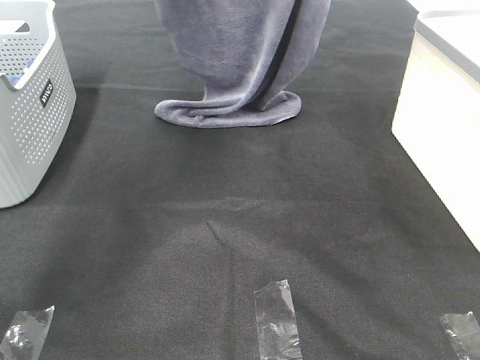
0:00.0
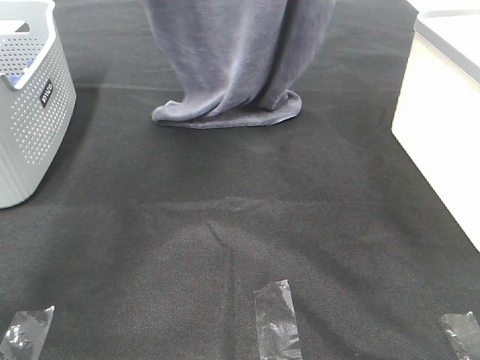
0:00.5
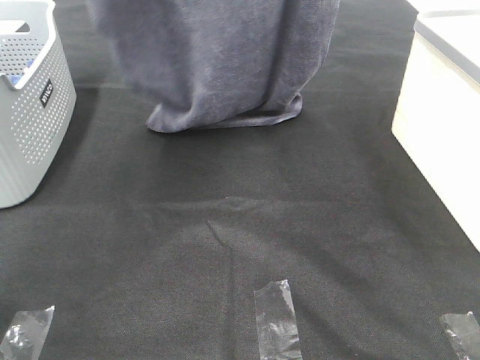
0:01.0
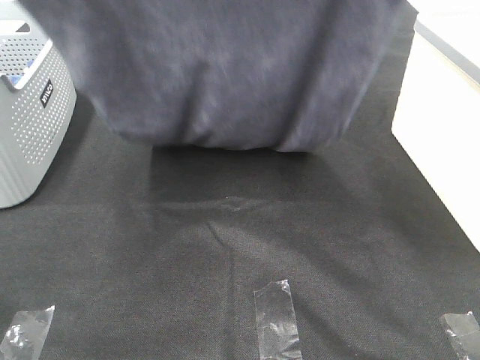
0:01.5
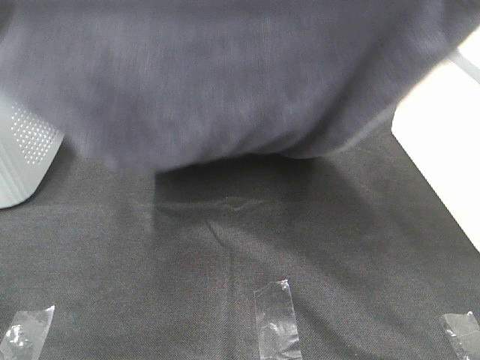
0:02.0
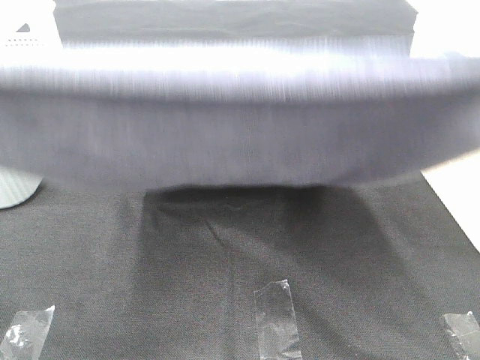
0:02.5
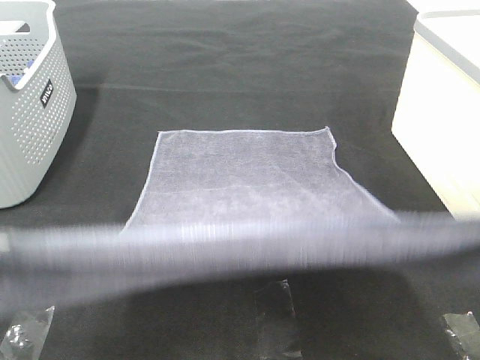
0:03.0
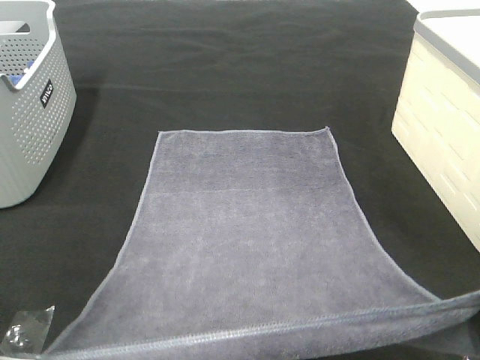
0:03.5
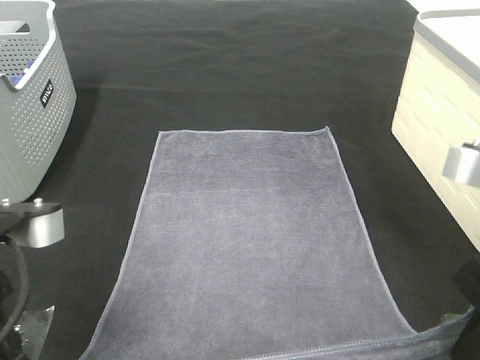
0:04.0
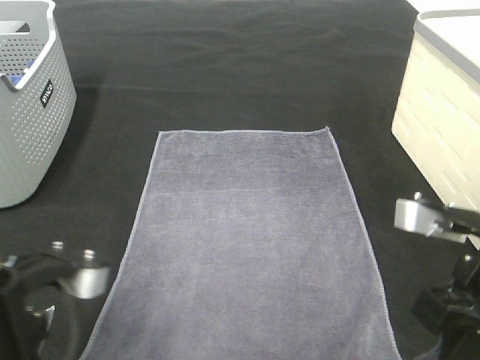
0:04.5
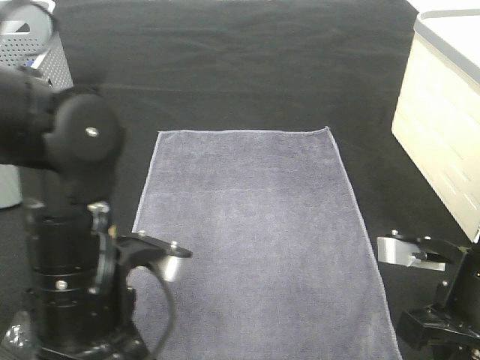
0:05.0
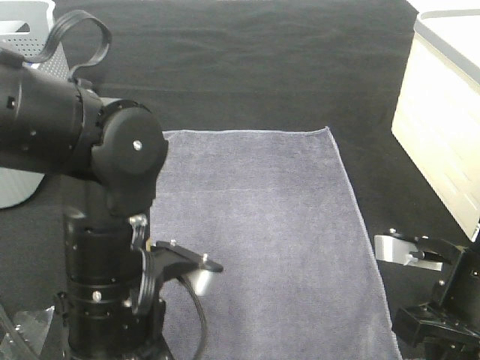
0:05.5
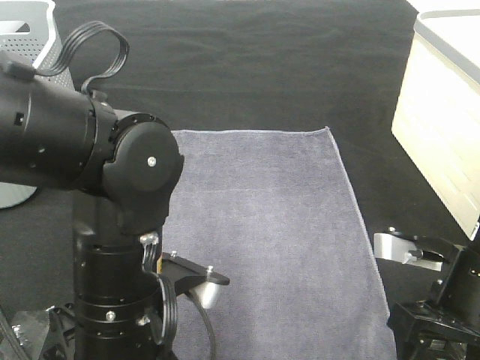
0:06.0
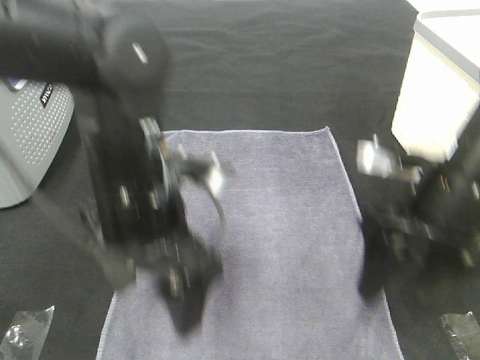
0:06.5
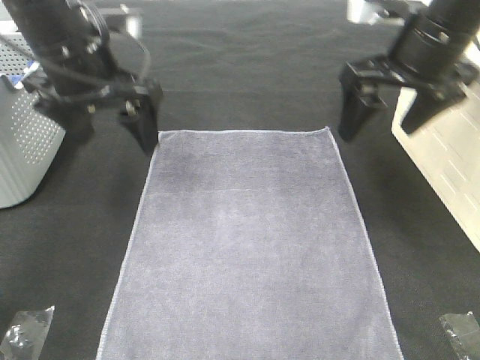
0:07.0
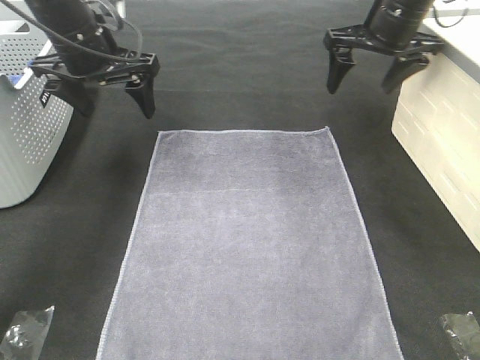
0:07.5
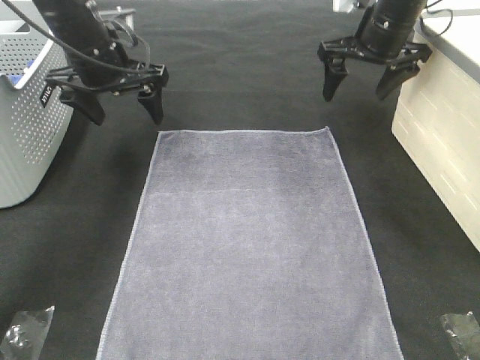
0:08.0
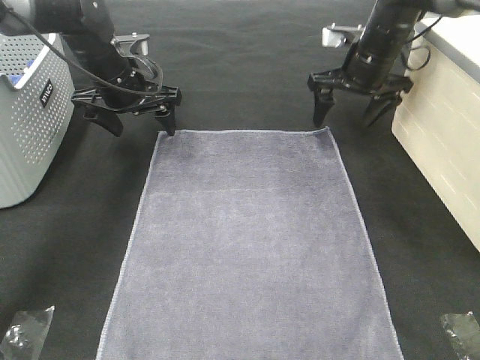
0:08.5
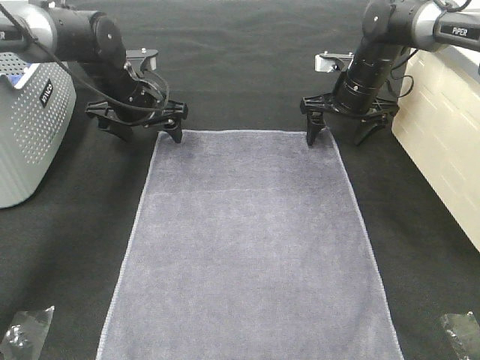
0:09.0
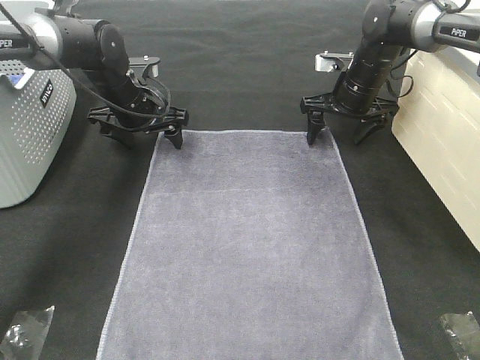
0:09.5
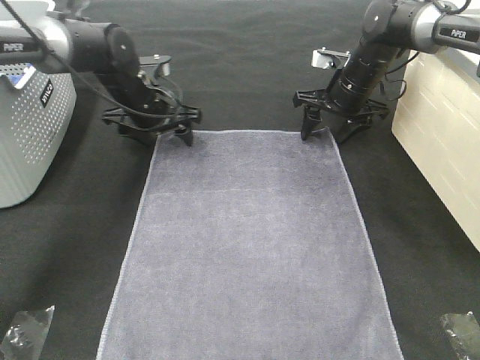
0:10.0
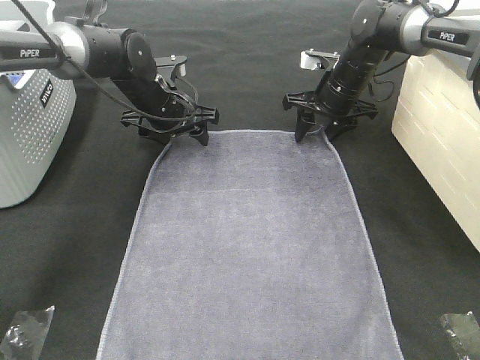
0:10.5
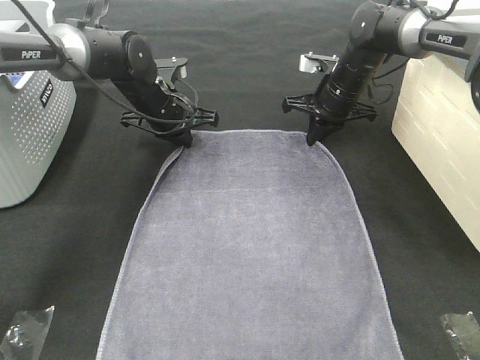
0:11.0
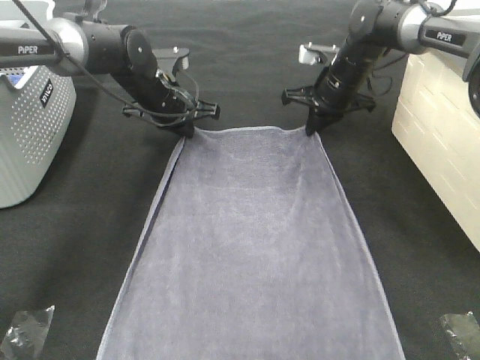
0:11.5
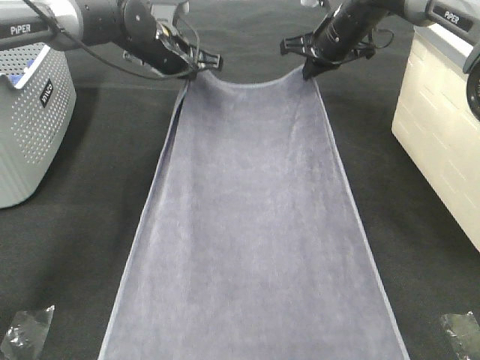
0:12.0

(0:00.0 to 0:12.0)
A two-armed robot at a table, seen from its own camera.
Task of the whole recording: Remove the towel and place it.
Step, 0:01.5 - 0:09.5: Left hand:adjust the gray towel.
Step, 0:01.5 - 0:10.5: Right hand:adjust the gray towel.
0:00.0 - 0:02.0: Both grippers move backward, roughly 30 cm.
0:02.0 - 0:04.0: Both grippers move downward, approximately 20 cm.
0:04.0 - 0:06.0: The left gripper goes approximately 15 cm to the right and downward, and opens. Meanwhile the right gripper shifts approximately 10 cm downward, and opens up.
0:06.0 - 0:08.0: The grippers both shift forward by approximately 30 cm.
0:08.0 - 0:10.0: Both grippers travel together downward, some 10 cm.
0:10.0 - 0:12.0: The grippers both shift upward by some 5 cm. The right gripper closes; the left gripper closes up.

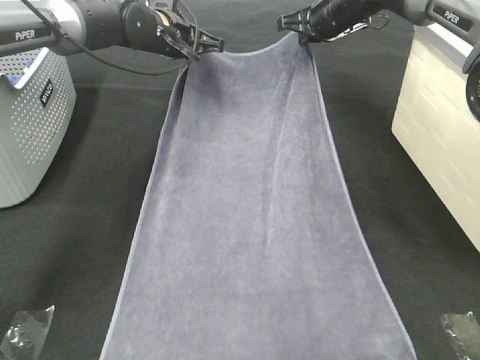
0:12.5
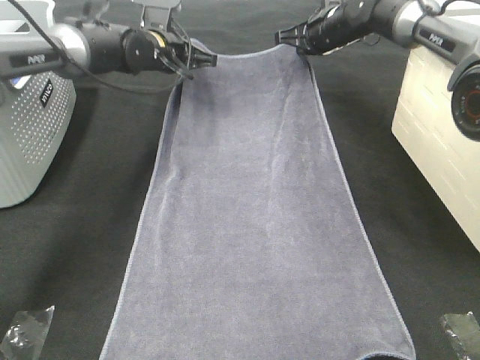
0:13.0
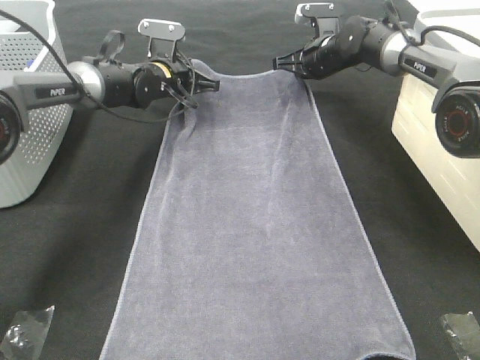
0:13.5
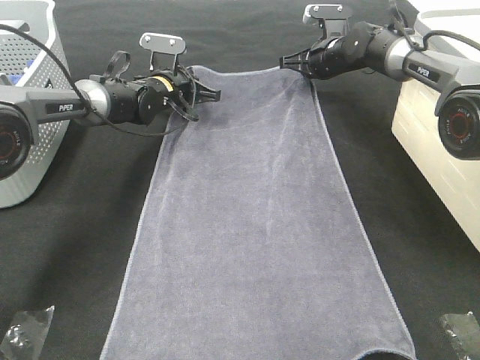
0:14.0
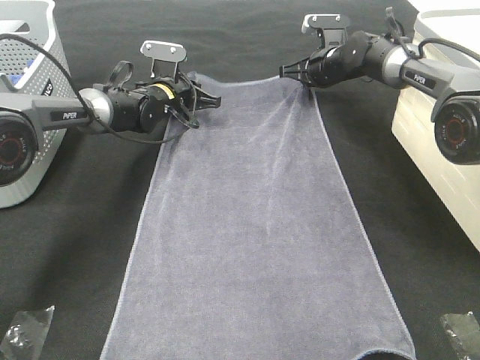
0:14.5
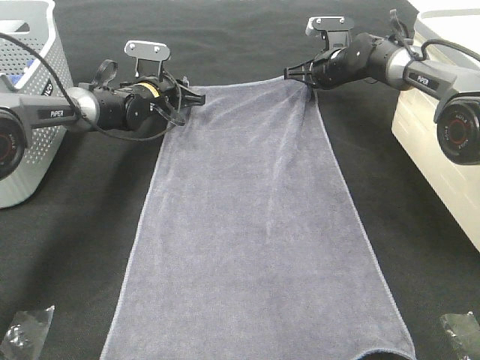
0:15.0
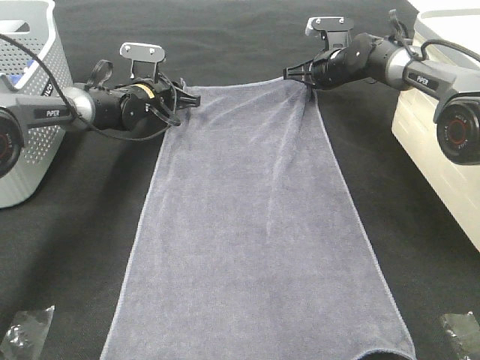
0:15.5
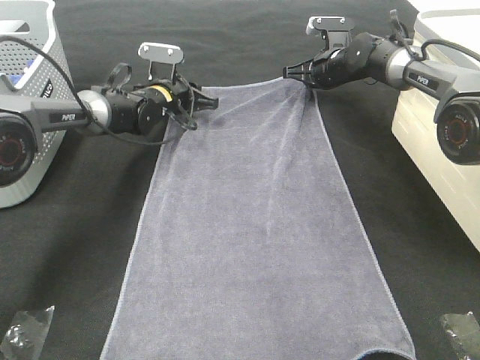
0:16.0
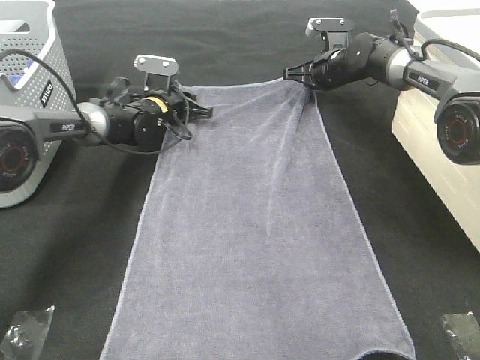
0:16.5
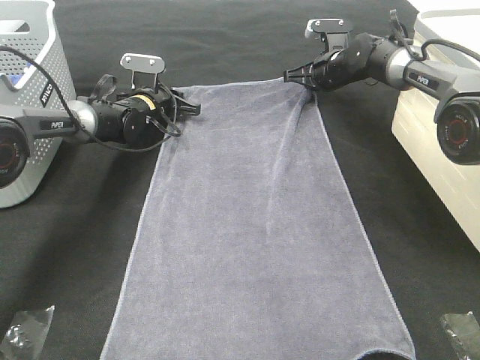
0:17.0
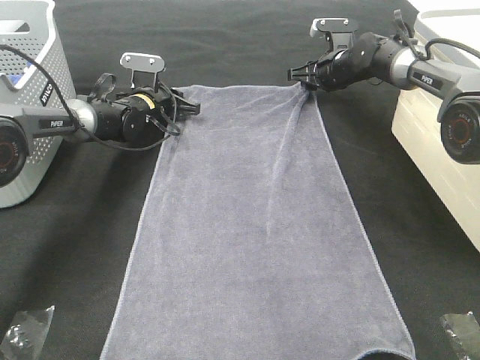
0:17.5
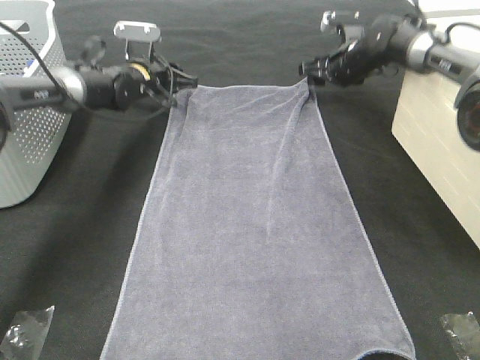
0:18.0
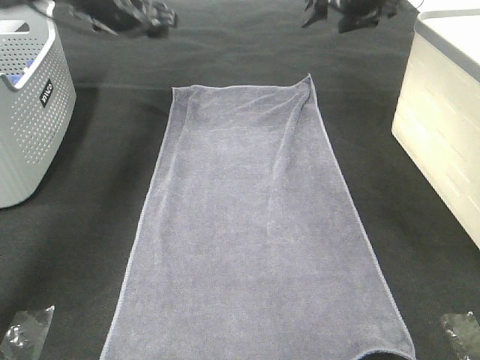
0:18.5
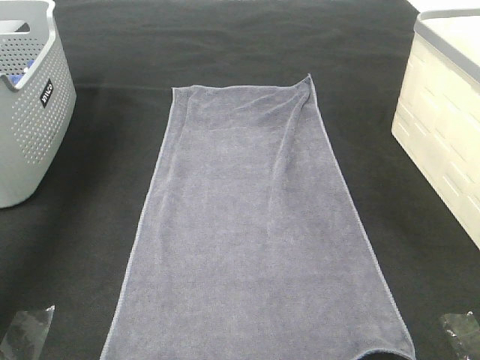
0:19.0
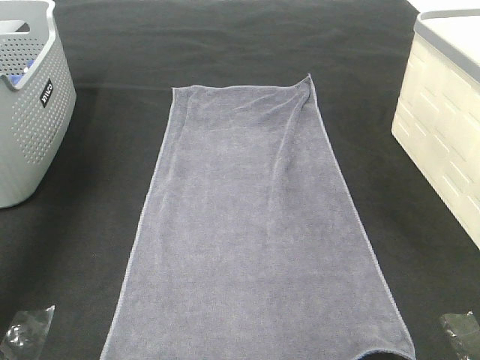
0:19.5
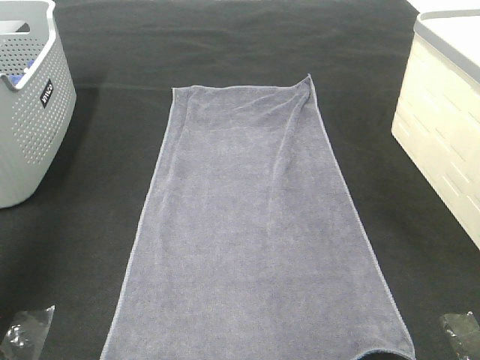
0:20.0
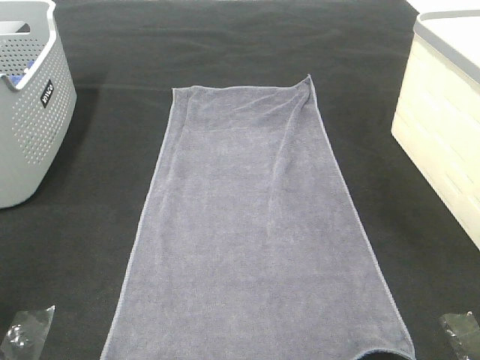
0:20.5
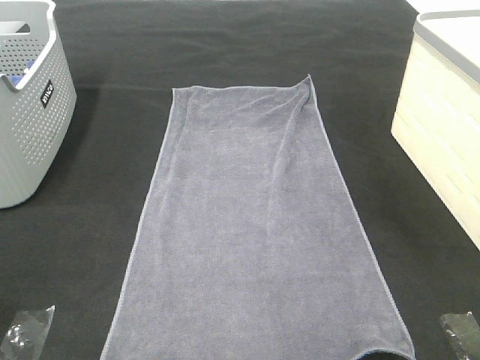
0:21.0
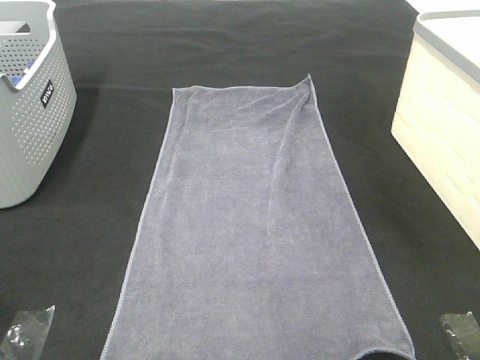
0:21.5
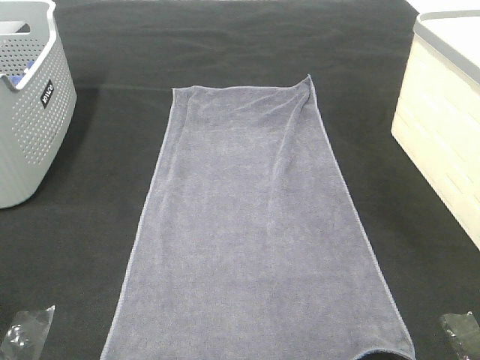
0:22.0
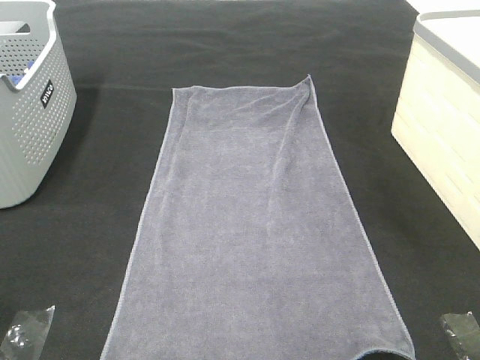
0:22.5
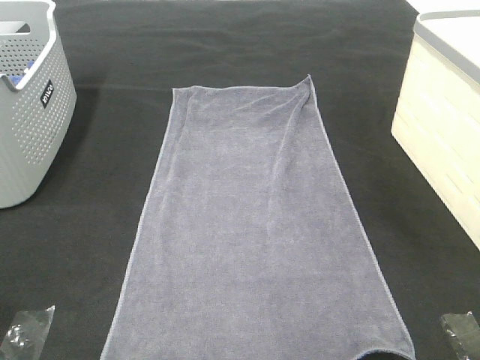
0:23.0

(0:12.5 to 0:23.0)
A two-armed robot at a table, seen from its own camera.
Task of the whole recording: Remove the towel and place it.
0:12.5 - 0:14.5: Both grippers move downward, about 10 cm.
0:14.5 - 0:16.5: The grippers move only a little.
0:16.5 - 0:19.0: The left gripper shifts roughly 35 cm upward and to the left, and opens; the right gripper goes about 35 cm upward and backward, and opens its fingers.
0:19.0 - 0:21.0: The grippers both shift backward by about 50 cm.

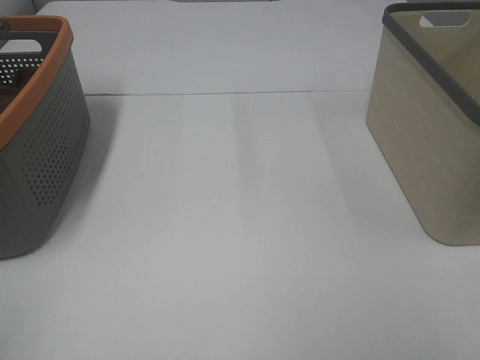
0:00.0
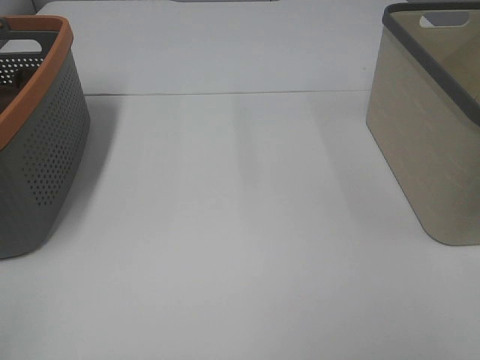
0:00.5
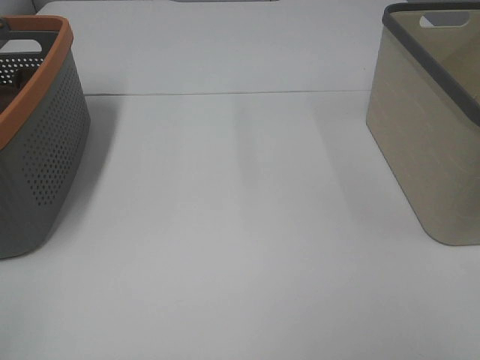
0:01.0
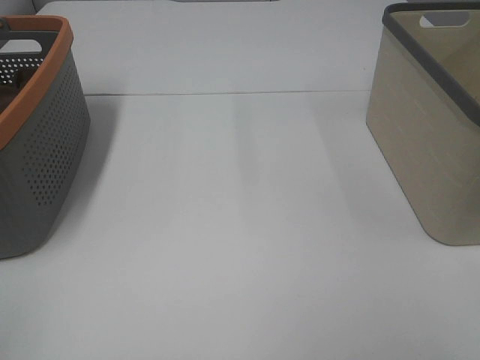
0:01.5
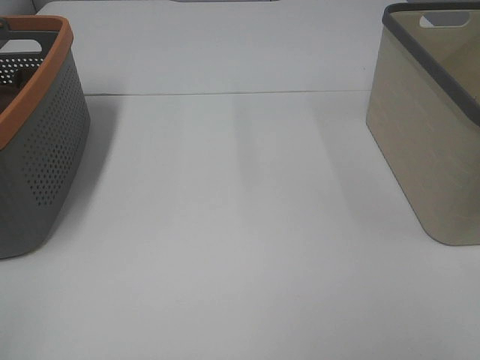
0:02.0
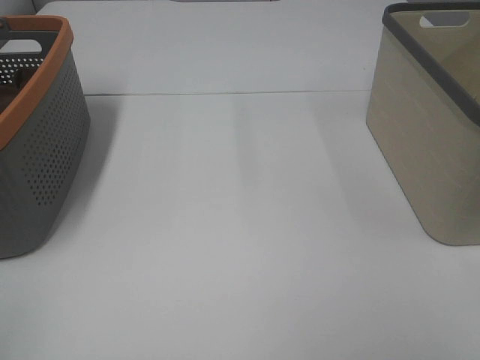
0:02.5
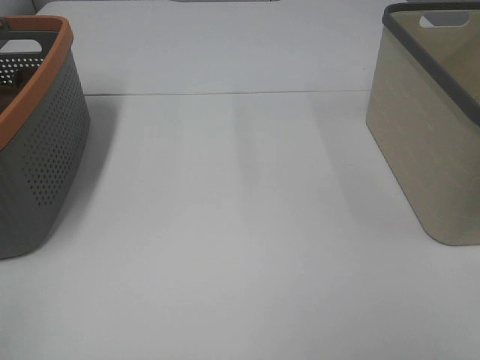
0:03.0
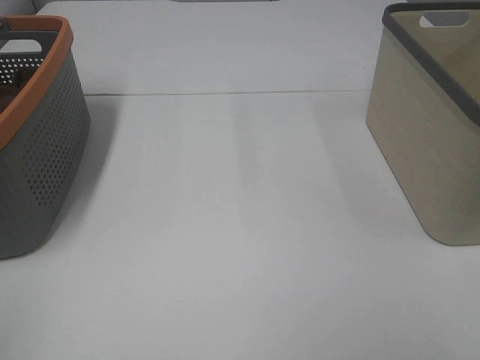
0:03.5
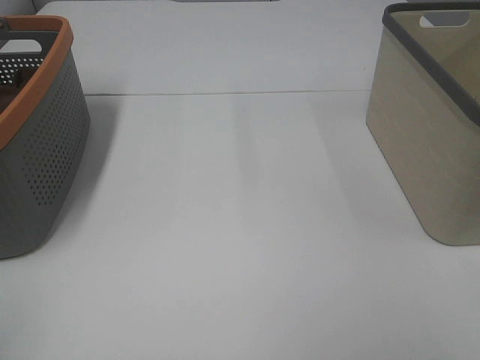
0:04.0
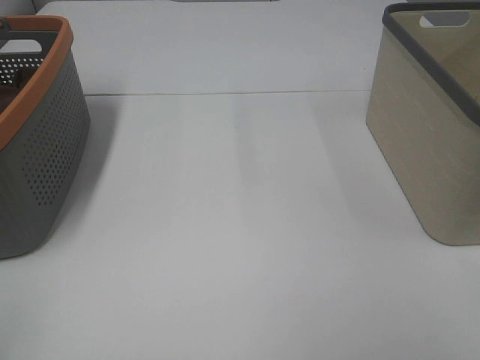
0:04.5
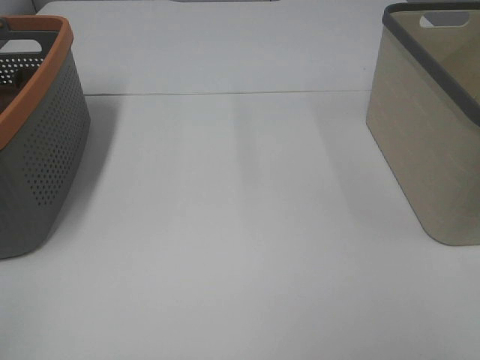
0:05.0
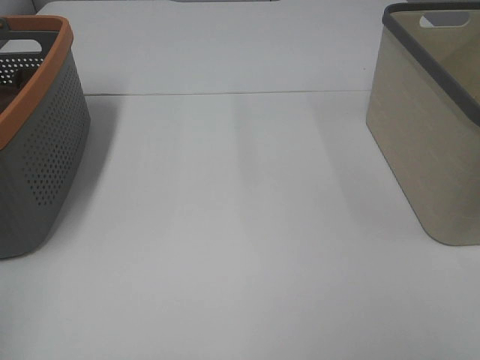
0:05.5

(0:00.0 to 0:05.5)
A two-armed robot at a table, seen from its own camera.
Task of the whole recording: Remove the towel and place it.
0:00.0 - 0:03.5: Neither gripper changes place.
